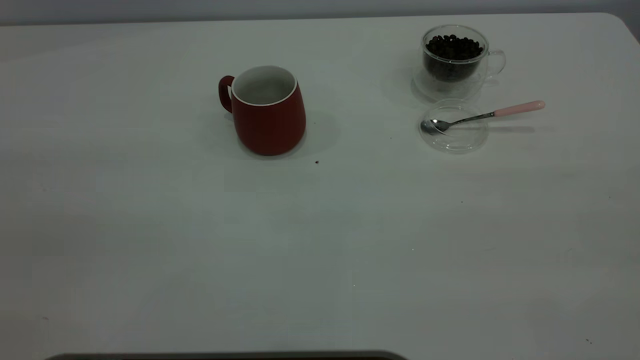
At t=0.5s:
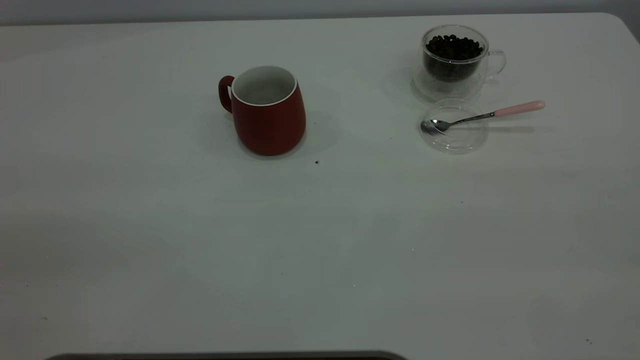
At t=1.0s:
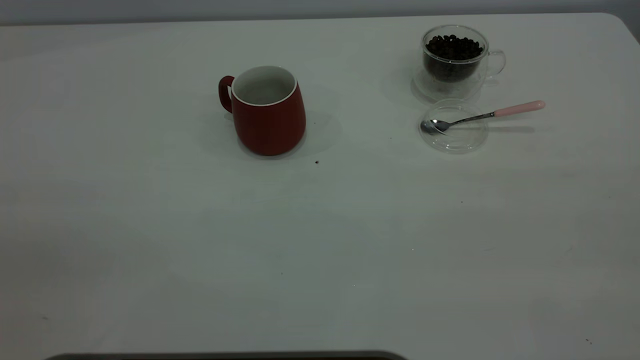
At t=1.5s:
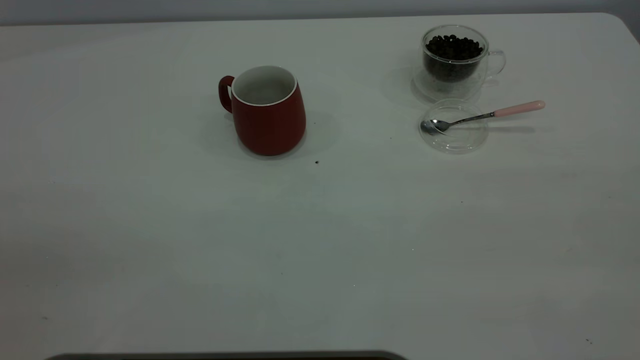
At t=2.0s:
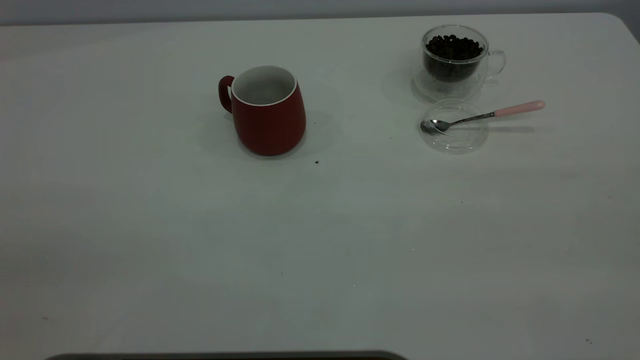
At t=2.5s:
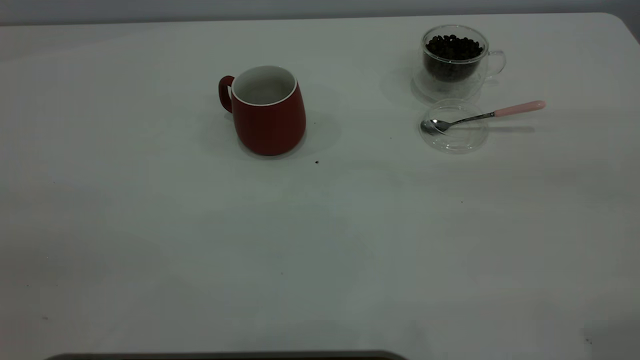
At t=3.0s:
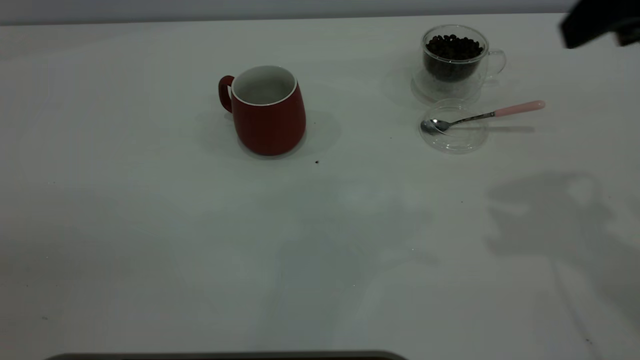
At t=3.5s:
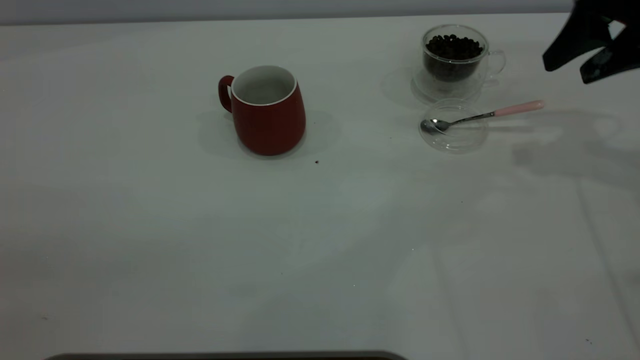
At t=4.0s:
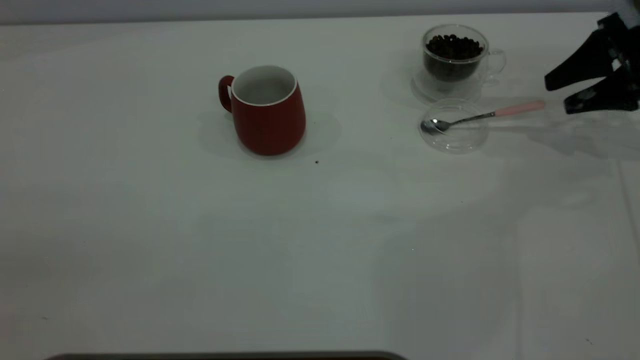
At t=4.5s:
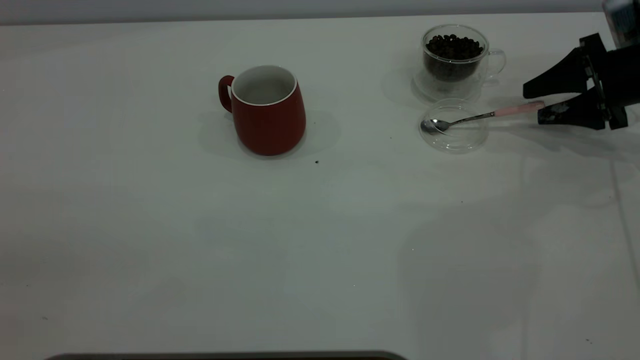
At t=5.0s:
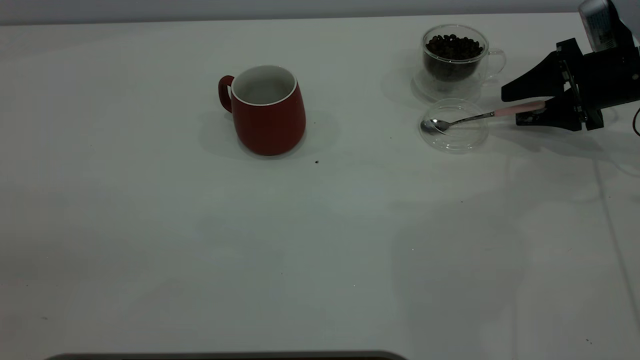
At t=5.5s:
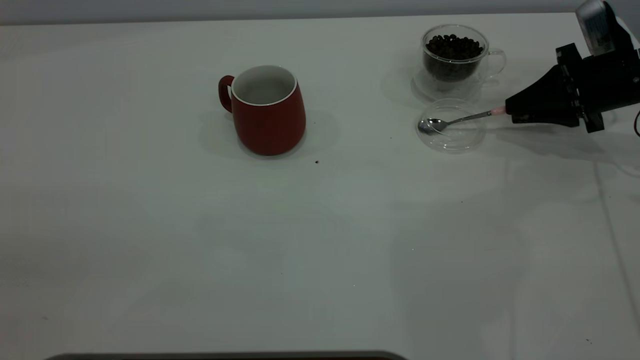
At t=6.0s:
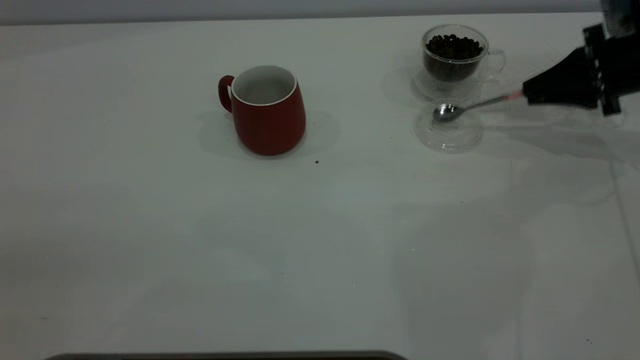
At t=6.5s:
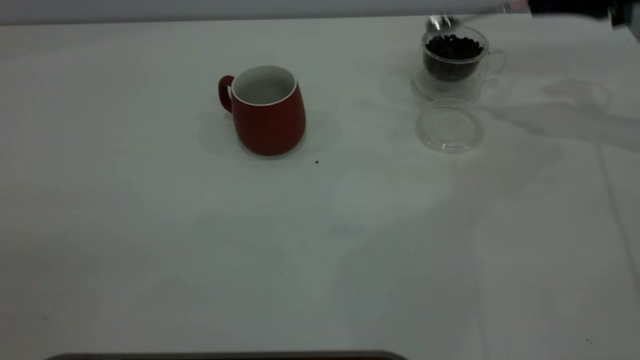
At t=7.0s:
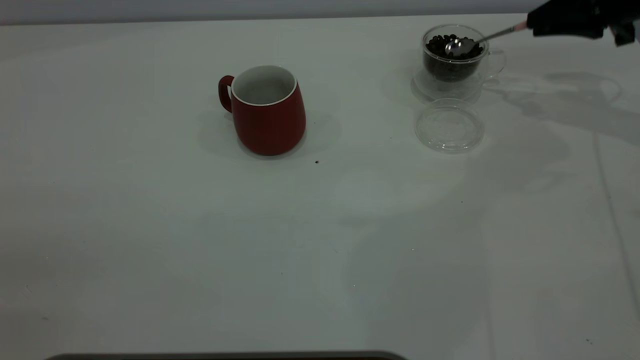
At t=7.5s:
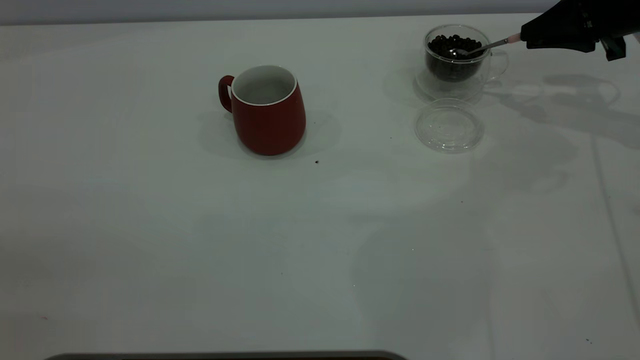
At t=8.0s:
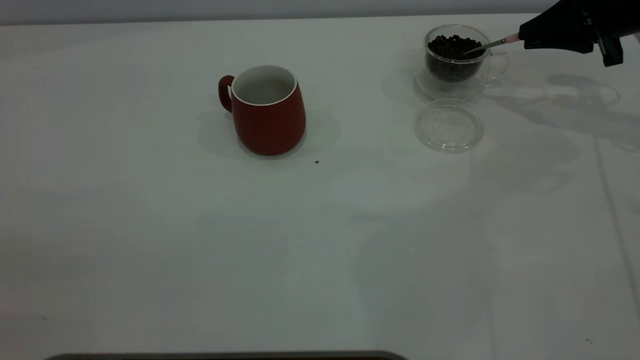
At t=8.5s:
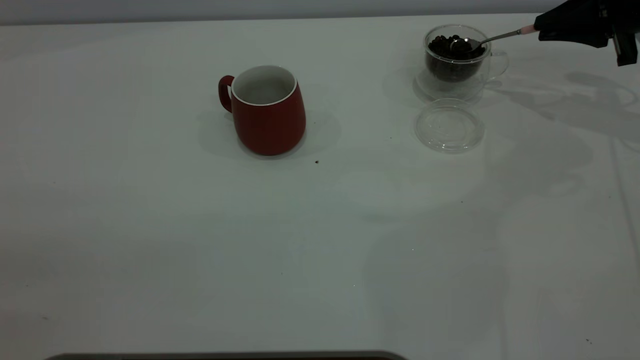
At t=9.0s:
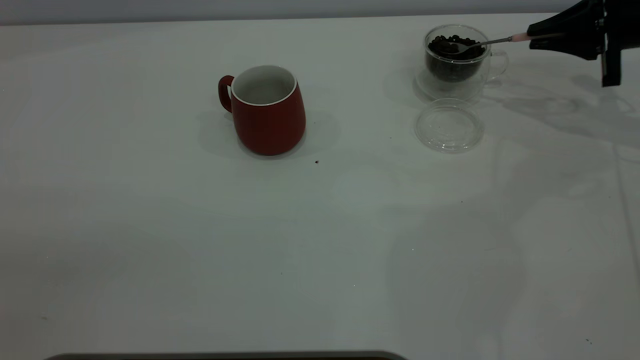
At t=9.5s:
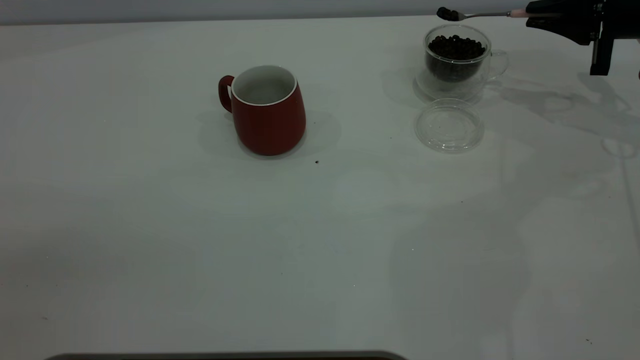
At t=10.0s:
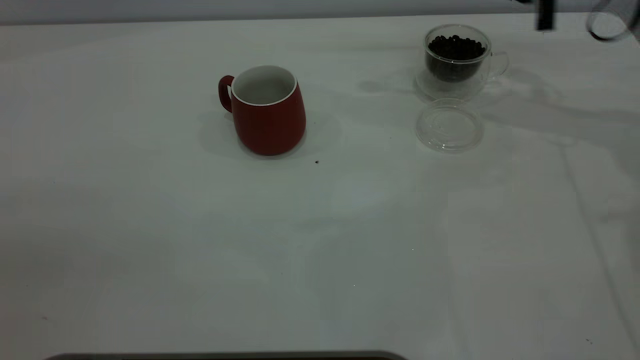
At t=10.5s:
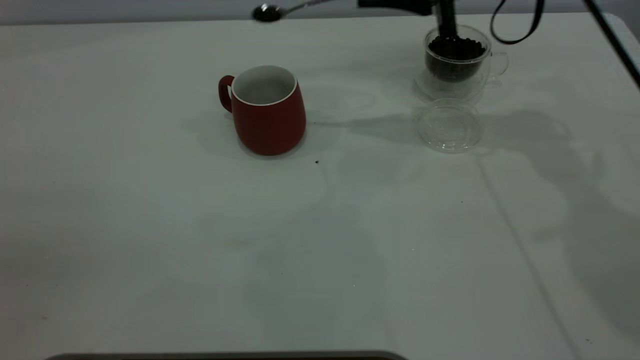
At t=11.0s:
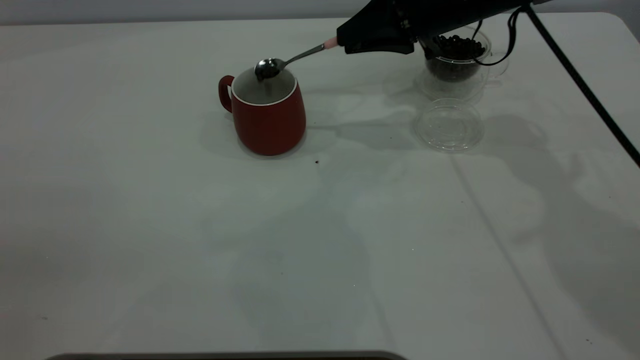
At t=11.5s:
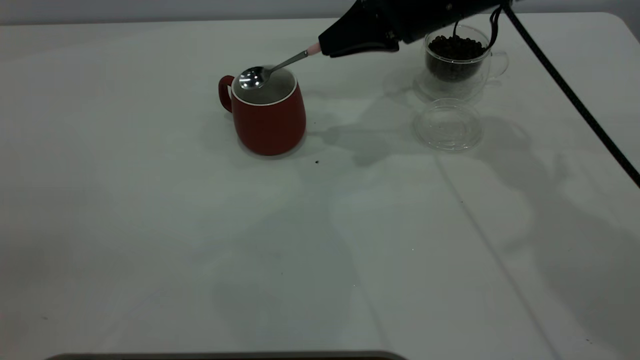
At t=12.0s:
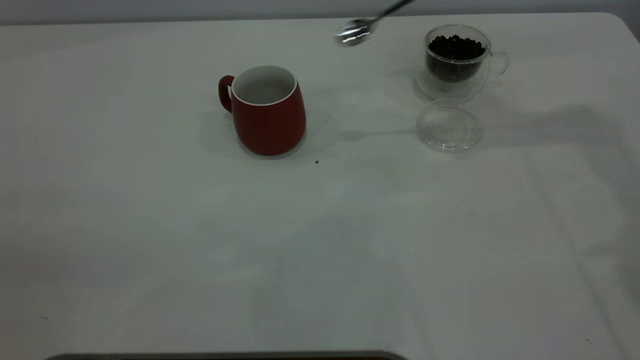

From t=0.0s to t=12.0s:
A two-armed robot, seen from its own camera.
Task of the whole recording: the left gripper place the red cup in the center of the table, the right gripper take the pink spoon from the cup lid and scoop out the coffee beans from the coffee cup and put them into the red cup, the right gripper put the spoon back into the cup lid.
Step, from t=0.0s to t=6.0s: Pick up the spoon.
Step, from t=6.5s to t=11.5s: Scoop a spoonful of beans into the cup.
From t=2.0s to t=4.0s: The right gripper moves forward and downward, roughly 50 cm.
From t=4.0s to t=6.0s: The right gripper closes up.
From t=8.0s to t=10.0s: The right gripper travels to the left by roughly 10 cm.
From t=10.0s to t=12.0s: The right gripper heads upward, covering roughly 5 cm, and reaches some 15 cm to the left, then returns.

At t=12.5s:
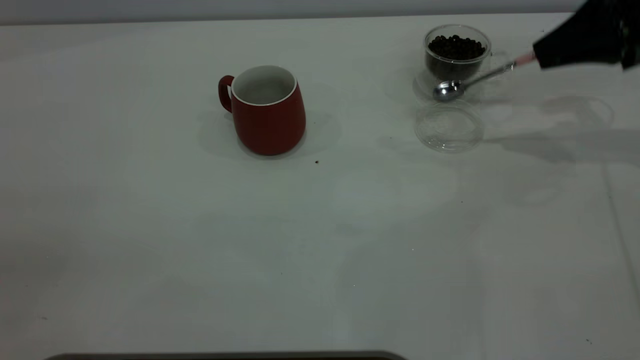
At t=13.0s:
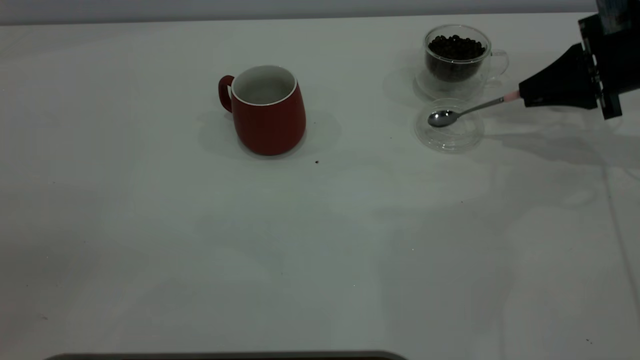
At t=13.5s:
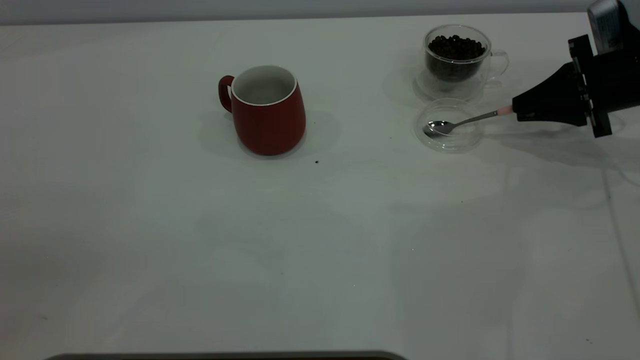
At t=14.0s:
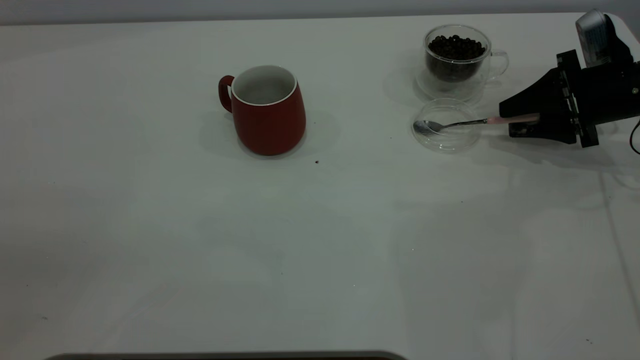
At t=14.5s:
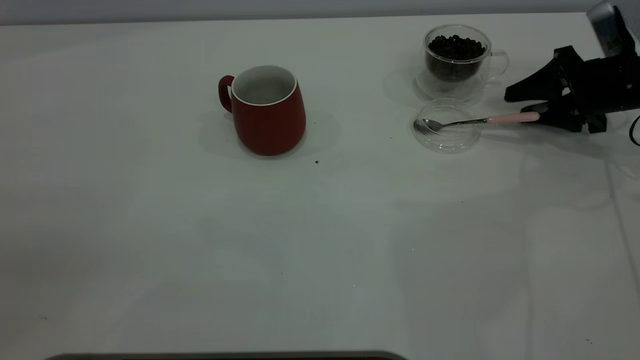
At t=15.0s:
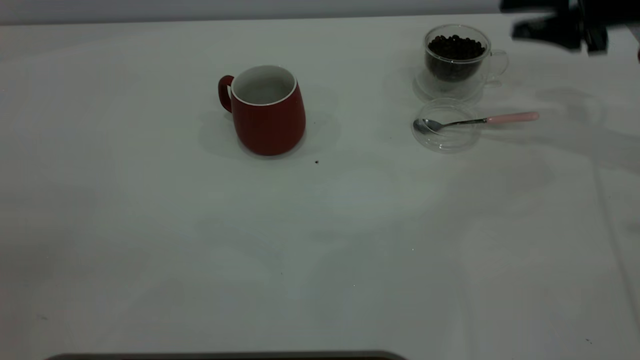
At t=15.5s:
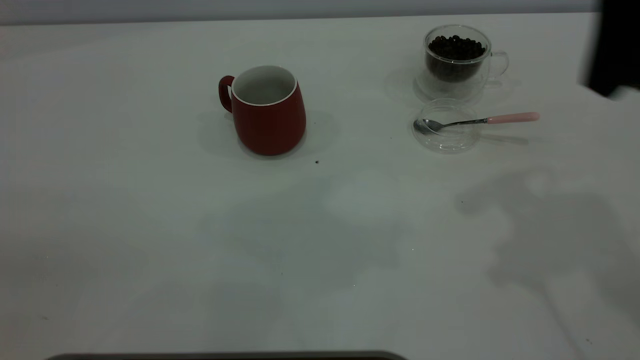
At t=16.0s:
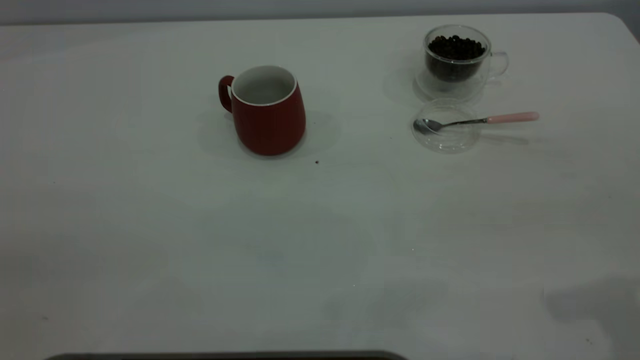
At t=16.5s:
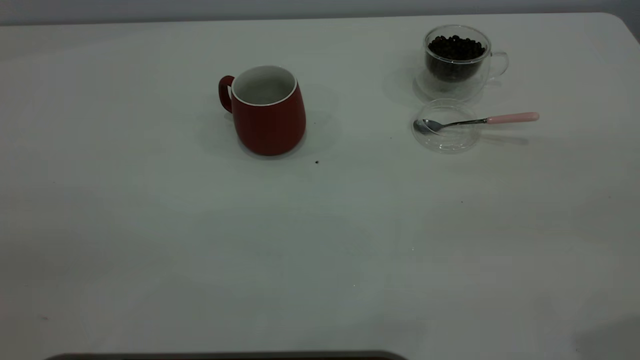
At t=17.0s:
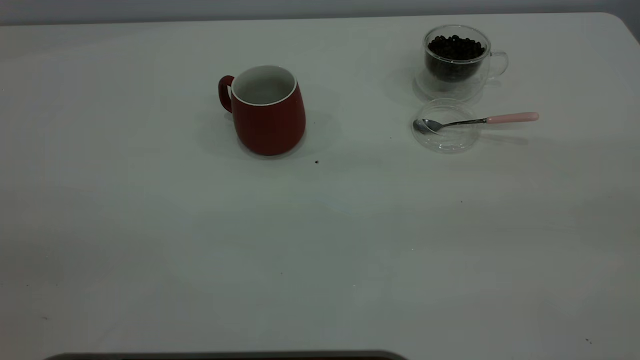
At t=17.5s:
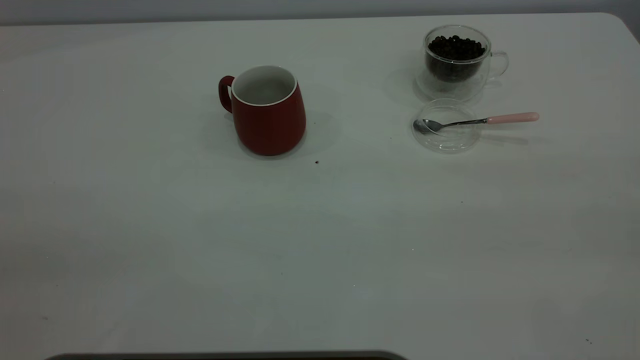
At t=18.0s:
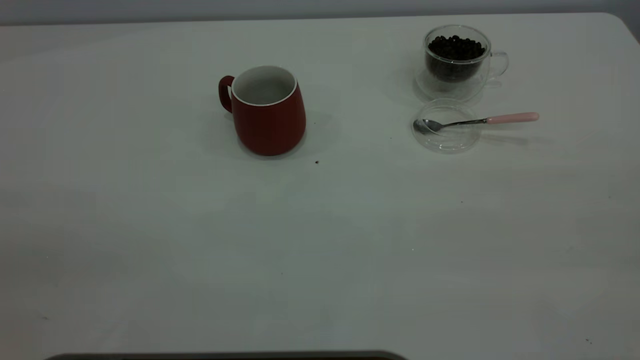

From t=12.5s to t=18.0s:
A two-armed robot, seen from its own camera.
Task of the whole recording: the left gripper place the red cup in the center of the table, the right gripper take the pink spoon from the cup lid and scoop out the coffee beans from the coffee cup and put them into the red cup, the right gripper put the spoon back into the cup lid.
Step, from t=12.5s to t=14.5s: Place the spoon back in its original place.
From t=12.5s to t=14.5s: The right gripper is displaced downward by some 10 cm, and opens up.
From t=14.5s to t=16.0s: The right gripper shifts about 35 cm backward and upward.
